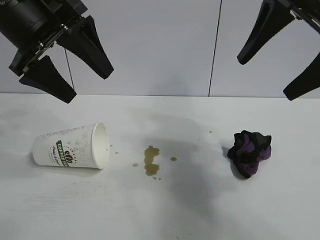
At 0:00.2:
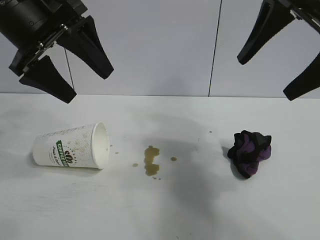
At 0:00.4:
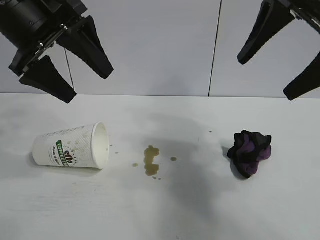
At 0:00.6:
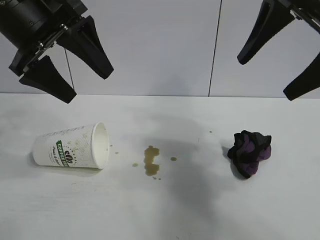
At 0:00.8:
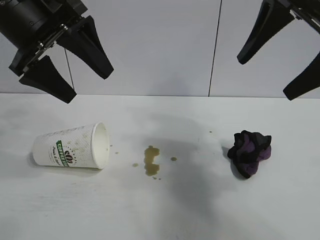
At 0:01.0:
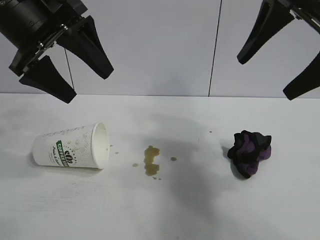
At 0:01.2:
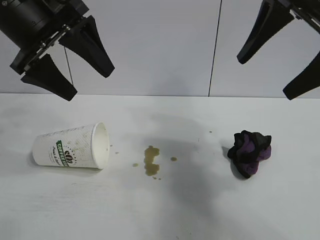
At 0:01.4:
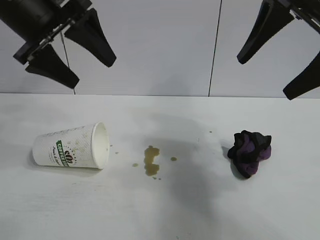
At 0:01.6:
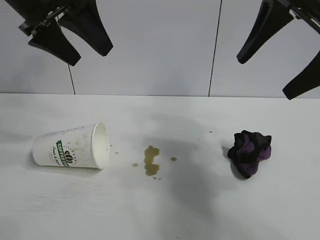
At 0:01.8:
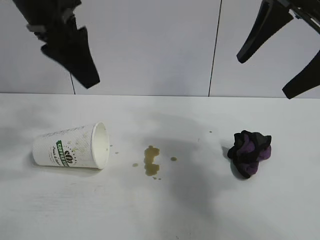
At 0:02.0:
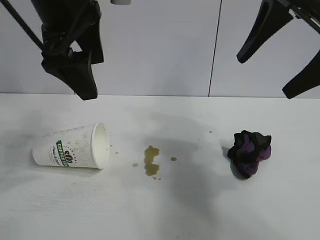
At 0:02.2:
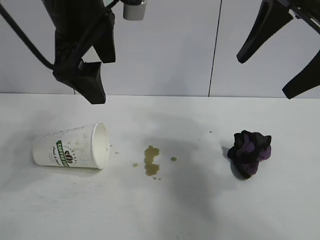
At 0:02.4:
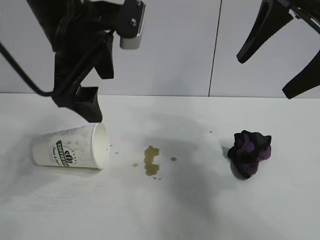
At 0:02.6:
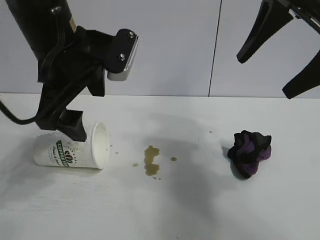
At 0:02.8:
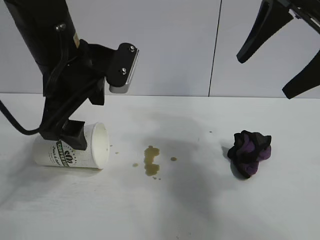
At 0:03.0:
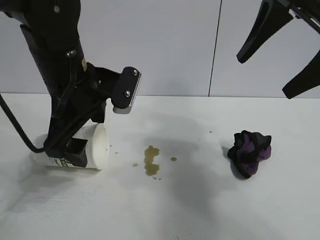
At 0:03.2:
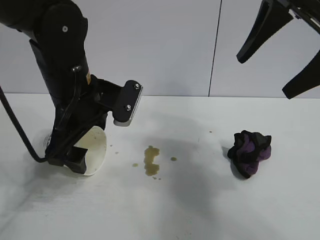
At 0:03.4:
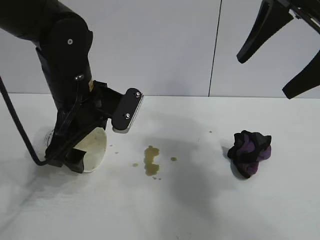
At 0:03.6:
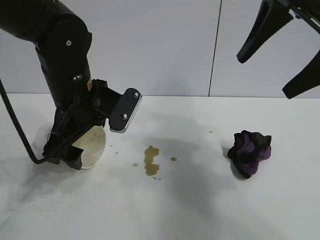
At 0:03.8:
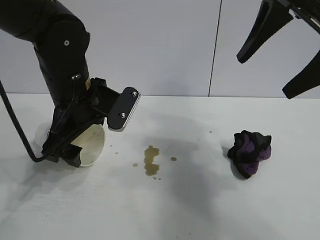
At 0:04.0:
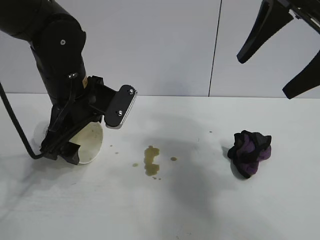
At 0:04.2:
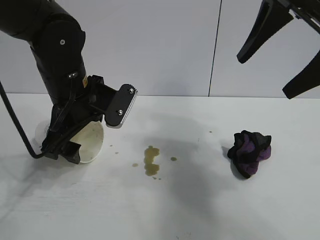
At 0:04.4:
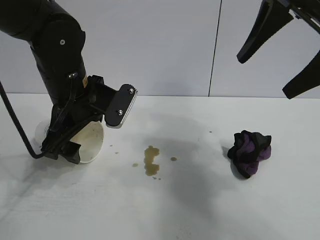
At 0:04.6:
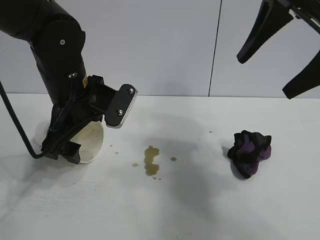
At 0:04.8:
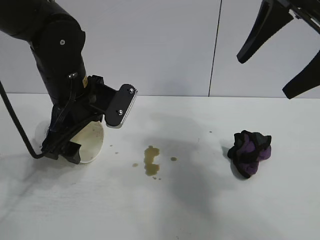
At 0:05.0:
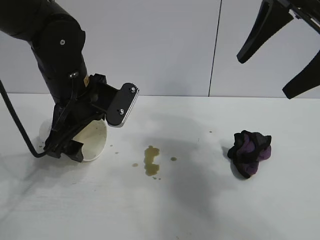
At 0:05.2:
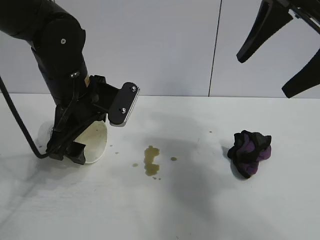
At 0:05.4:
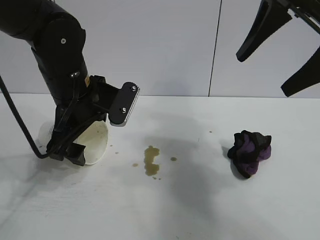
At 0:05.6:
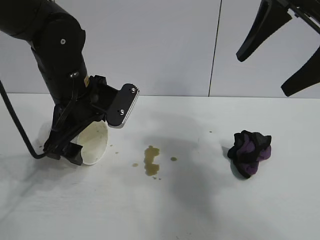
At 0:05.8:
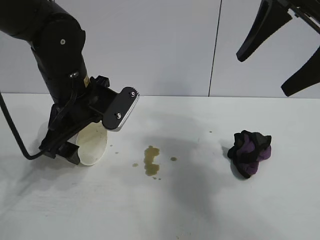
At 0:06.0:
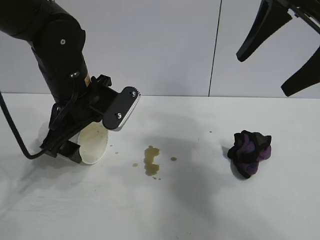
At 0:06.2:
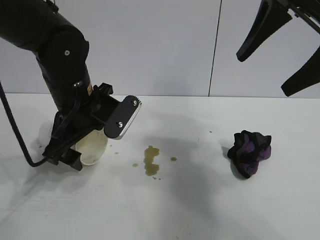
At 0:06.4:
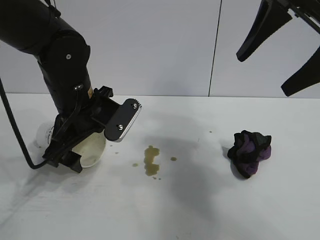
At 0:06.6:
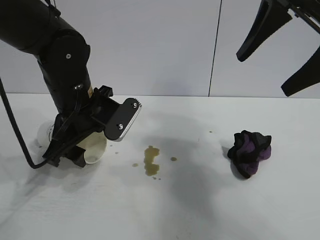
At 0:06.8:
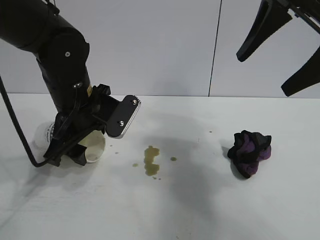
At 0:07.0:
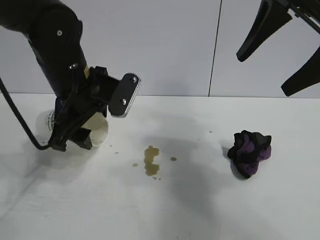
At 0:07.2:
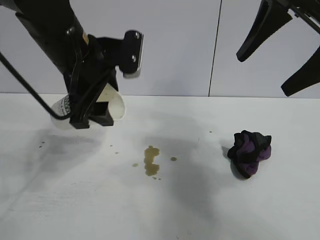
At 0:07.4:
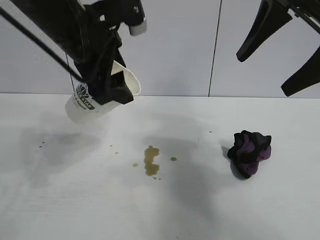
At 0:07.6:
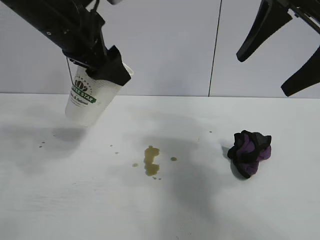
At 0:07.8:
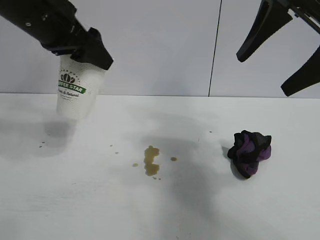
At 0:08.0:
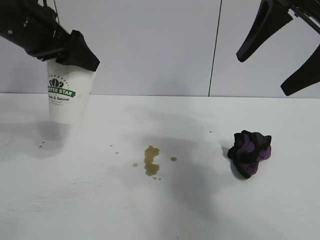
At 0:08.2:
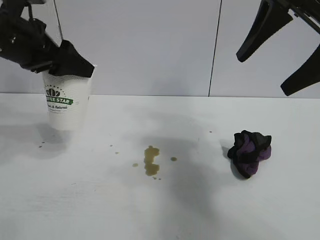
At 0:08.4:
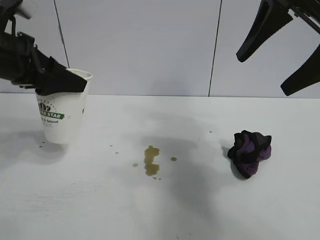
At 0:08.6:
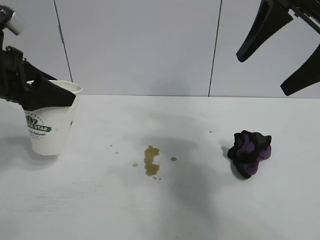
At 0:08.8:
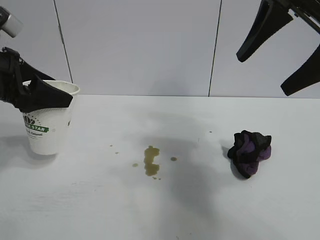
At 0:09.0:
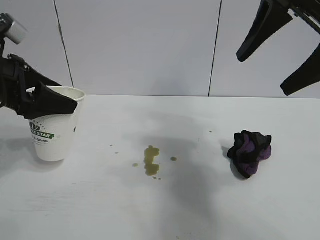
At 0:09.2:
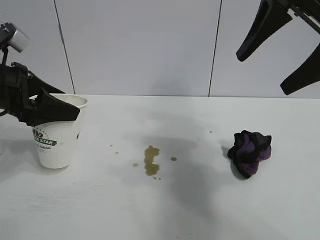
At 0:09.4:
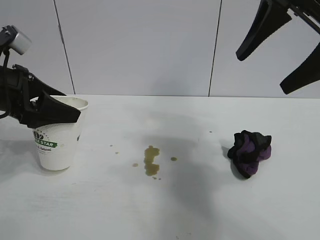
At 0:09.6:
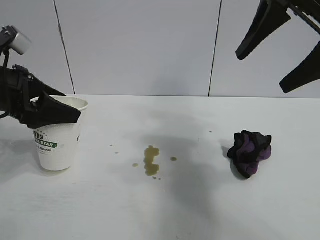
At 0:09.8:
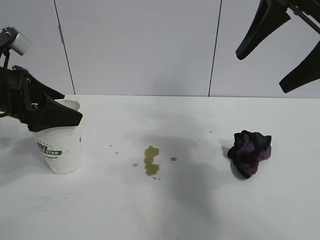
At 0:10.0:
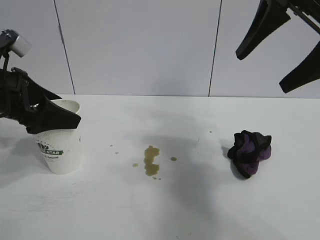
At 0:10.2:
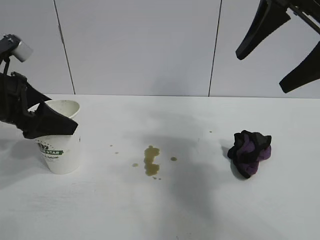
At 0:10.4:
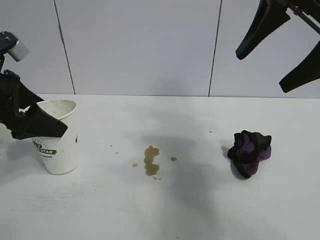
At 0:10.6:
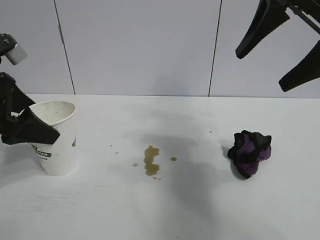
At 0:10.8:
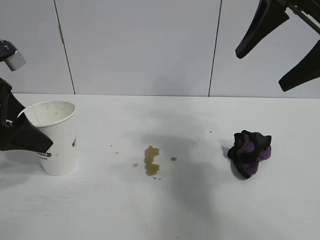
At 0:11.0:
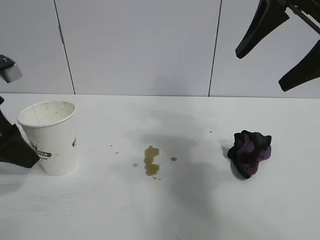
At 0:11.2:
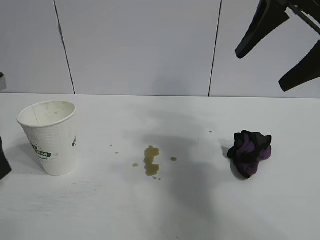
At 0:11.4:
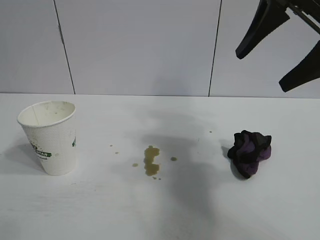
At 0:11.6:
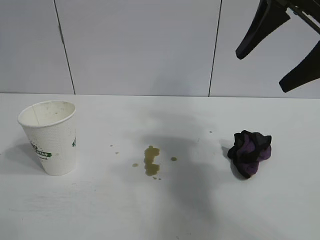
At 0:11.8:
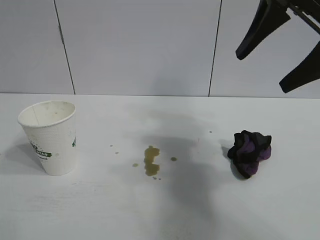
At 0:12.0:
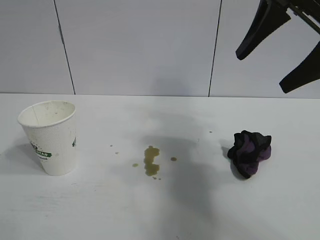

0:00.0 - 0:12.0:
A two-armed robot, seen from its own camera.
Task of the whole recording: the left gripper pick up the fallen cup and place it upright, the right gripper grasp the black rag and wipe the stain on the table, the right gripper put the black rag back in its original position.
Step, 0:01.2 - 0:06.6: Grasp the paper cup with left gripper.
Step, 0:06.8 - 0:10.4: Stand the paper cup upright with left gripper.

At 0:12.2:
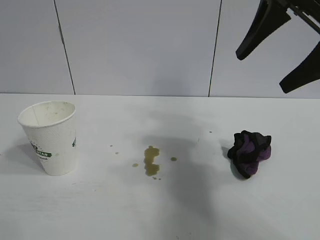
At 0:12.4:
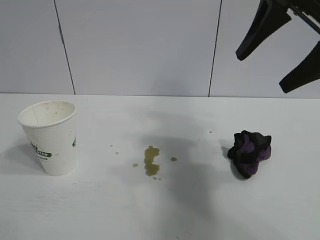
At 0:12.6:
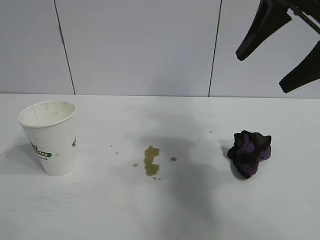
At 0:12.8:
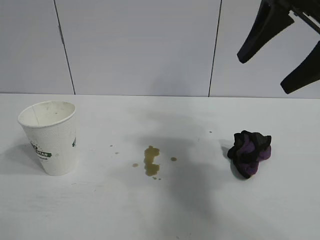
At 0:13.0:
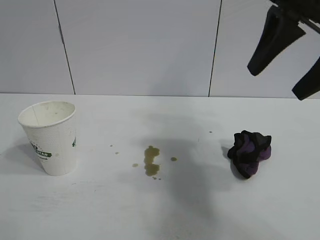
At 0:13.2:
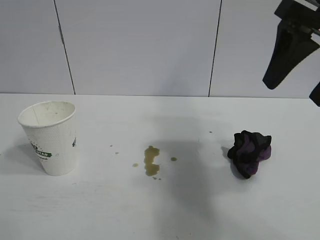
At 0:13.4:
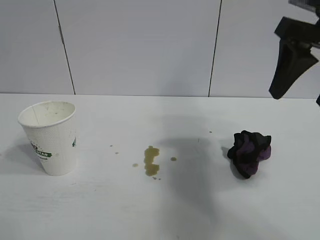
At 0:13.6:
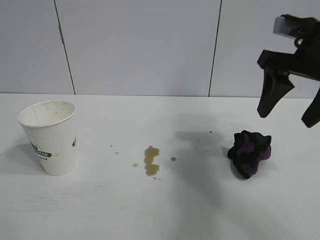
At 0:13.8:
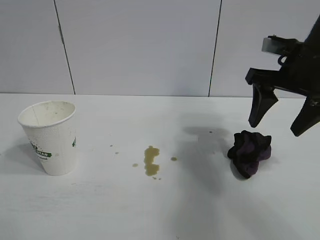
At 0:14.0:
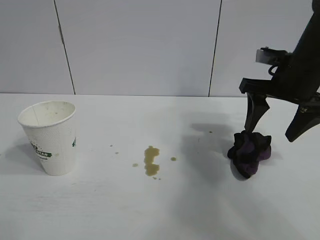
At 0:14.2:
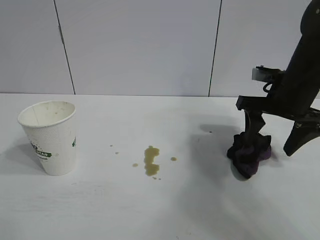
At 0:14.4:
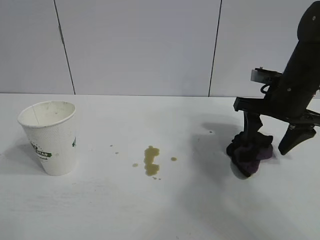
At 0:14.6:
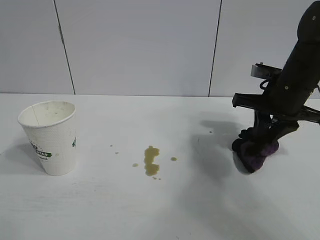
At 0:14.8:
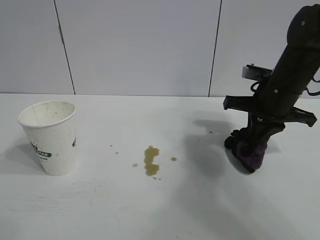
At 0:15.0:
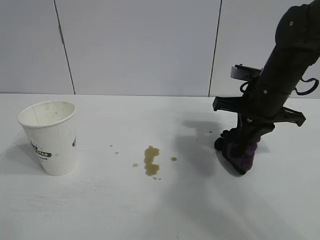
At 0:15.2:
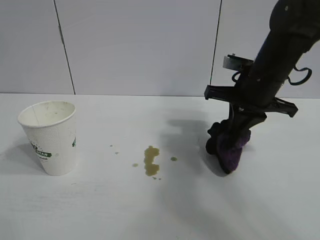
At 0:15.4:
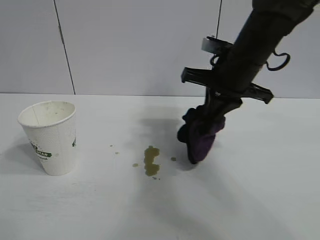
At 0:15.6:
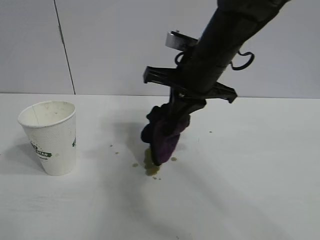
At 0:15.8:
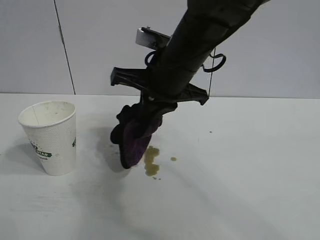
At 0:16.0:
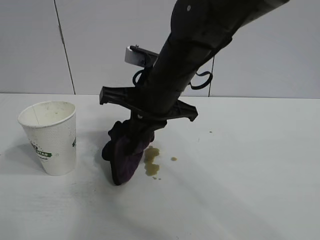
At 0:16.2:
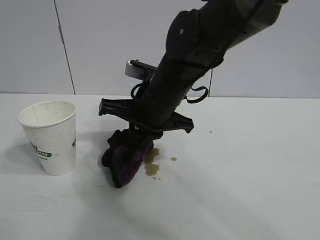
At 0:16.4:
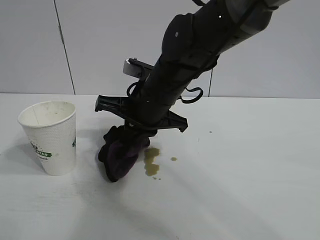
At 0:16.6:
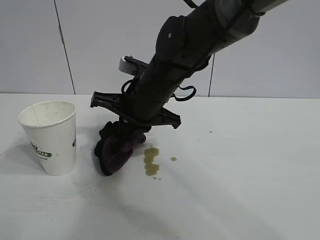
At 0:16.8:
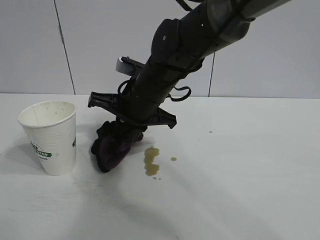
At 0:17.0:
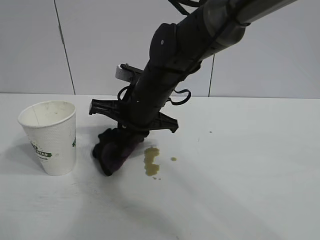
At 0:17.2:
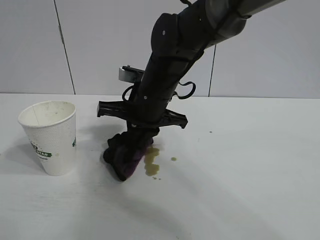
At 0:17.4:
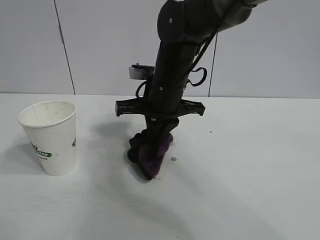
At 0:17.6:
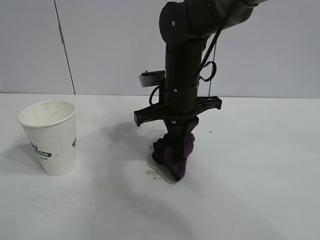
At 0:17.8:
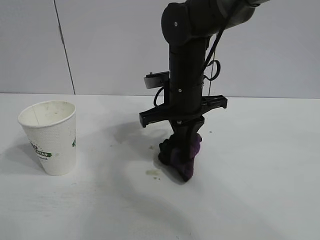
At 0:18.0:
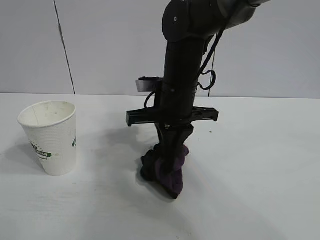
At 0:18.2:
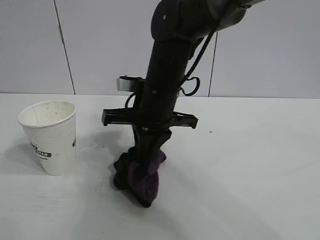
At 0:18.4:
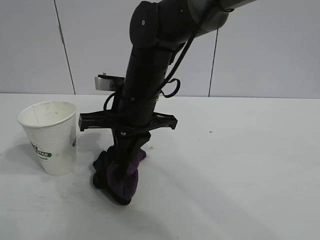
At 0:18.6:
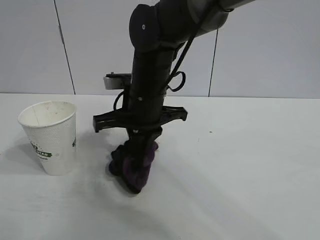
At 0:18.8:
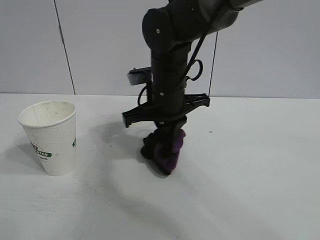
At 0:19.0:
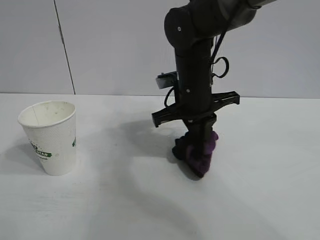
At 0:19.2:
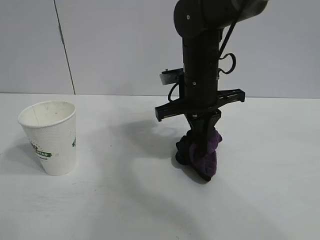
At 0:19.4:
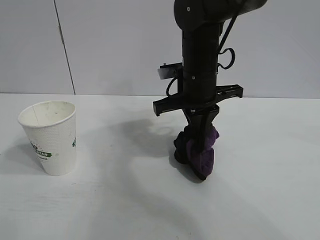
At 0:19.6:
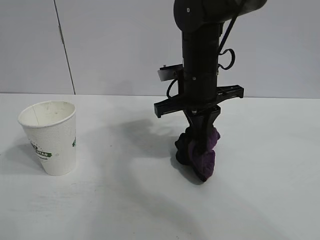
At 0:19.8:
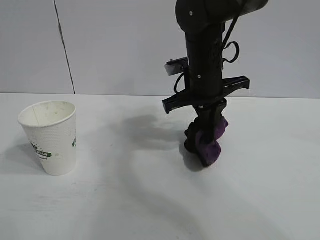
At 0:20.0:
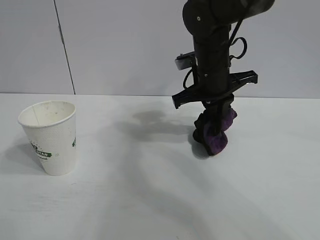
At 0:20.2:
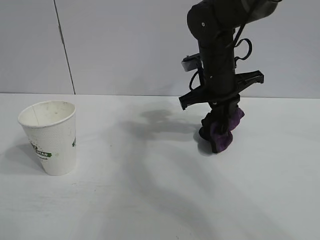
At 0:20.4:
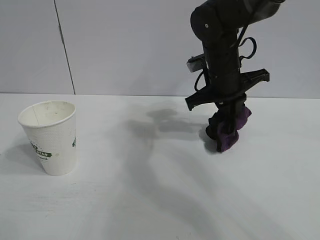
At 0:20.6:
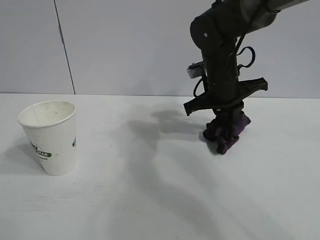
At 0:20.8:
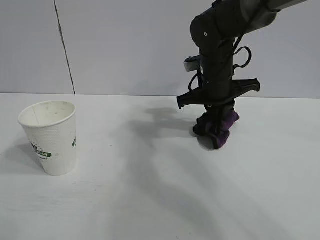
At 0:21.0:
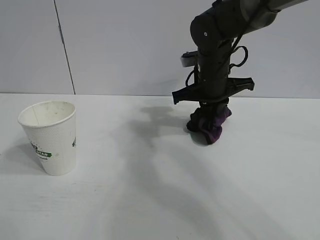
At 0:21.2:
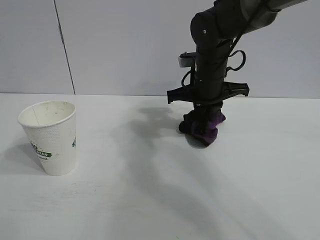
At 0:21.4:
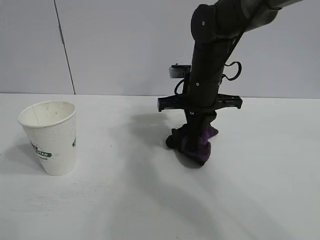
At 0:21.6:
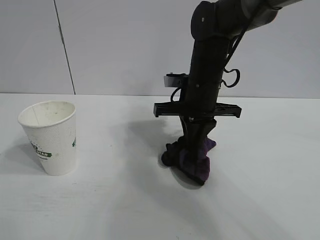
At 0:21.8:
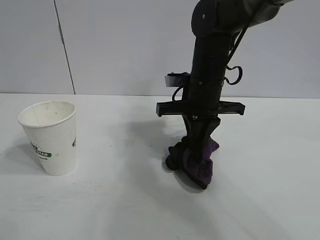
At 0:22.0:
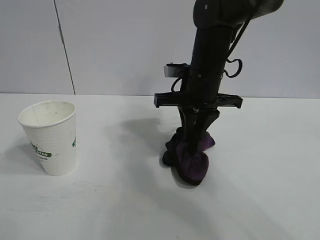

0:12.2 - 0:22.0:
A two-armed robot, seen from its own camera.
Task of the whole recording: the left gripper pick up the fallen cup and place it upright, the right gripper grasp the black rag and wipe the stain on the table, the right gripper put the black rag back in its original position.
Step, 0:12.2 - 0:14.6: Grasp the rag with right gripper.
Step, 0:14.8 - 0:21.6: Wipe the stains off the table with the rag with right gripper.
